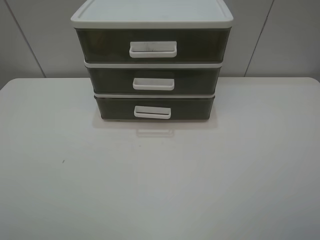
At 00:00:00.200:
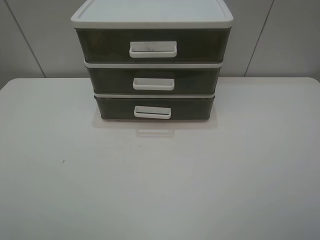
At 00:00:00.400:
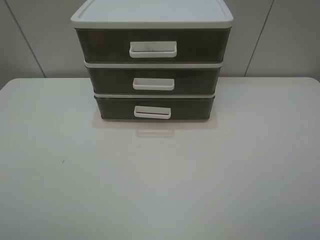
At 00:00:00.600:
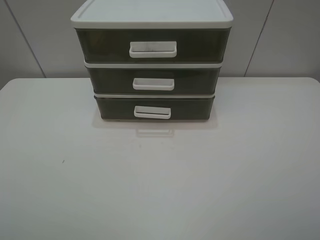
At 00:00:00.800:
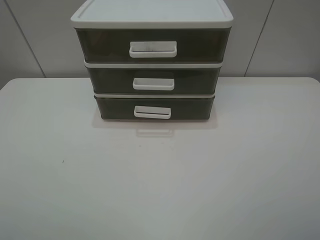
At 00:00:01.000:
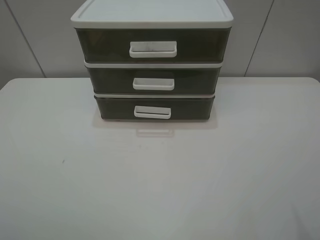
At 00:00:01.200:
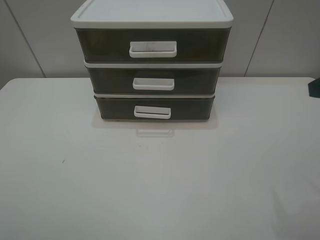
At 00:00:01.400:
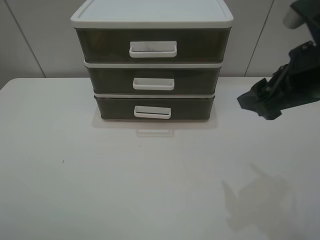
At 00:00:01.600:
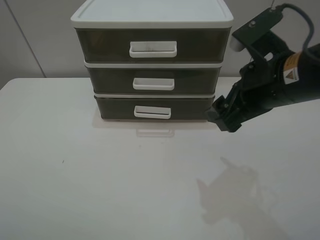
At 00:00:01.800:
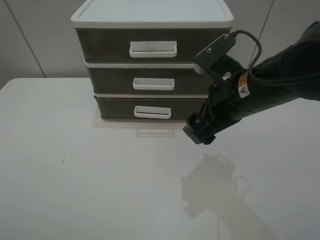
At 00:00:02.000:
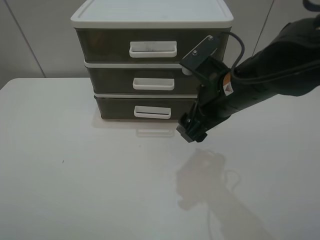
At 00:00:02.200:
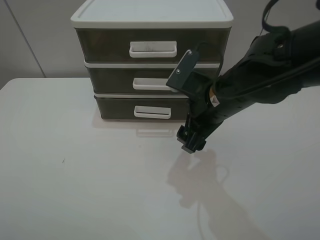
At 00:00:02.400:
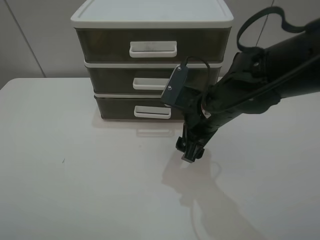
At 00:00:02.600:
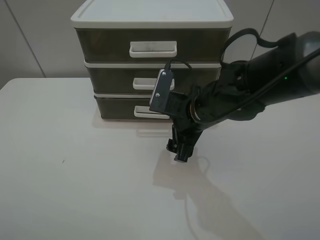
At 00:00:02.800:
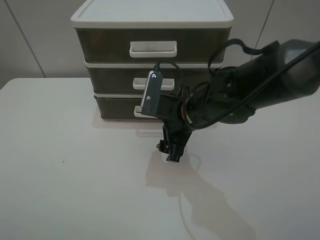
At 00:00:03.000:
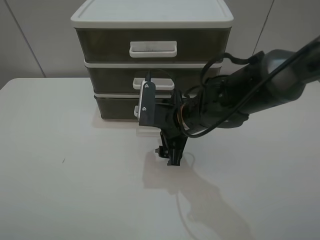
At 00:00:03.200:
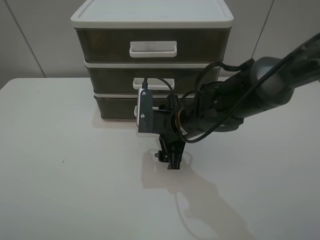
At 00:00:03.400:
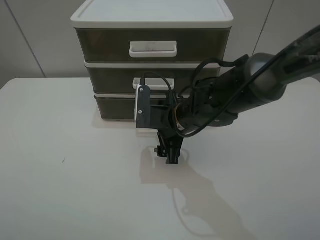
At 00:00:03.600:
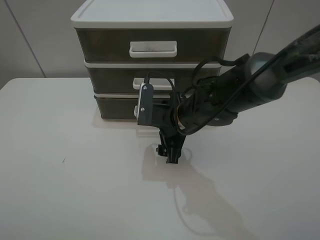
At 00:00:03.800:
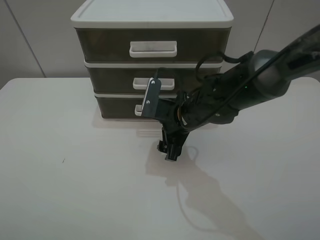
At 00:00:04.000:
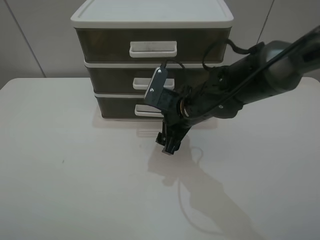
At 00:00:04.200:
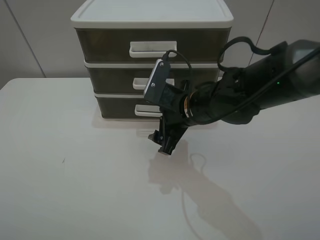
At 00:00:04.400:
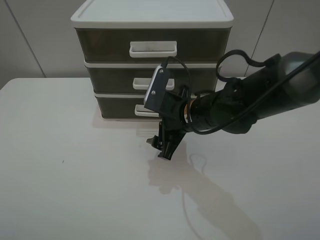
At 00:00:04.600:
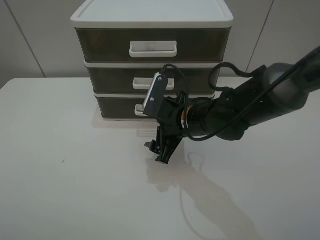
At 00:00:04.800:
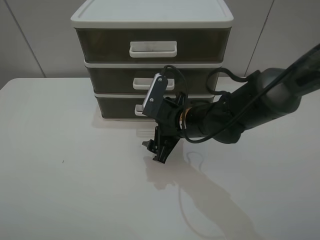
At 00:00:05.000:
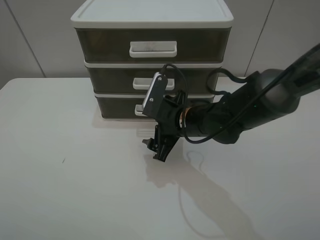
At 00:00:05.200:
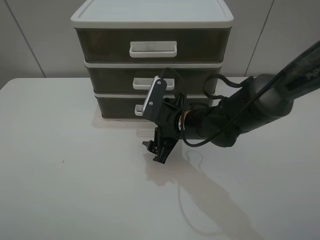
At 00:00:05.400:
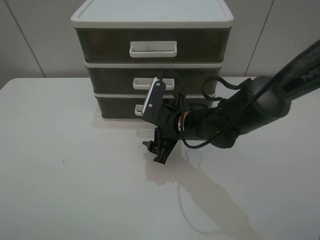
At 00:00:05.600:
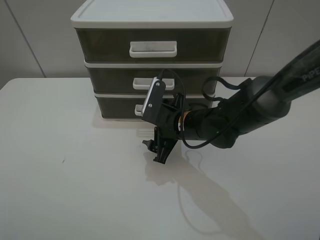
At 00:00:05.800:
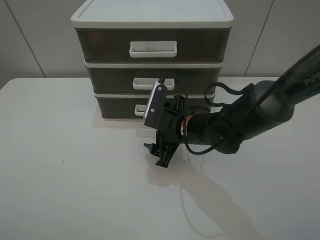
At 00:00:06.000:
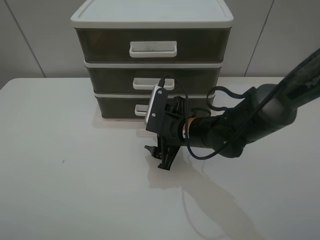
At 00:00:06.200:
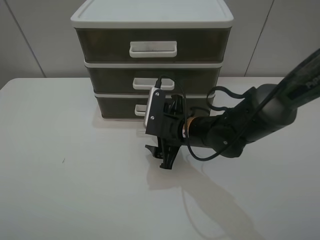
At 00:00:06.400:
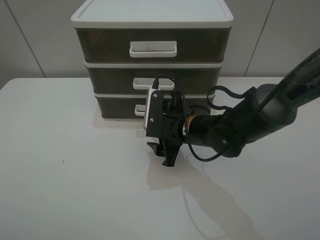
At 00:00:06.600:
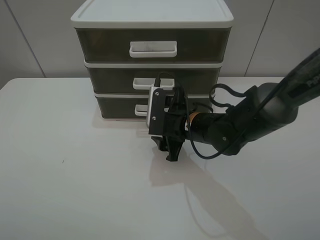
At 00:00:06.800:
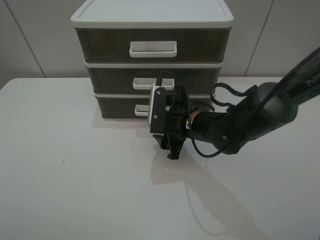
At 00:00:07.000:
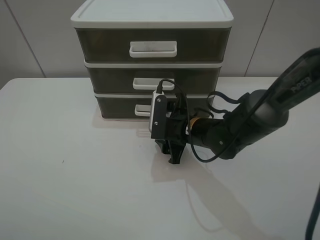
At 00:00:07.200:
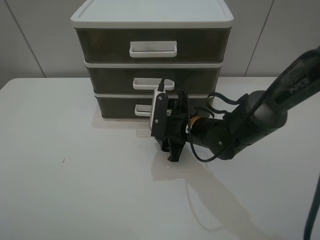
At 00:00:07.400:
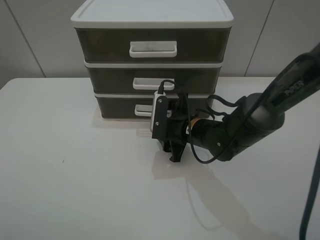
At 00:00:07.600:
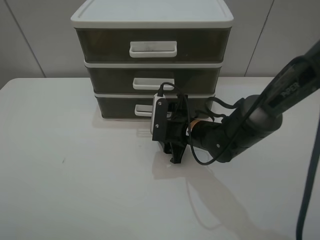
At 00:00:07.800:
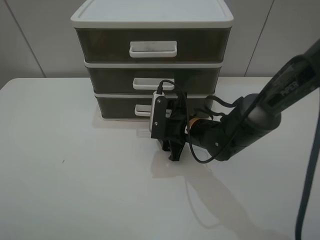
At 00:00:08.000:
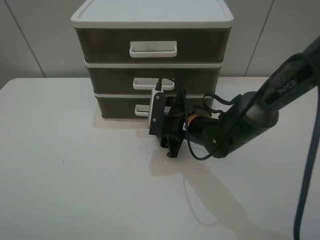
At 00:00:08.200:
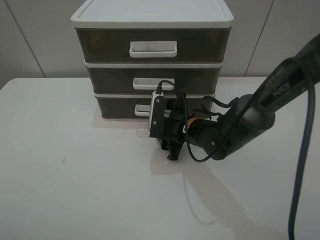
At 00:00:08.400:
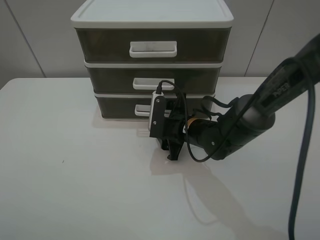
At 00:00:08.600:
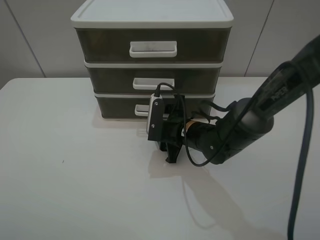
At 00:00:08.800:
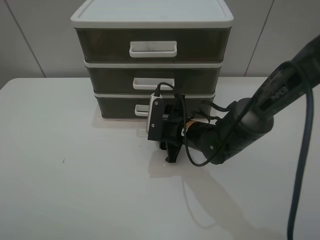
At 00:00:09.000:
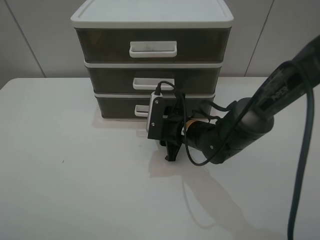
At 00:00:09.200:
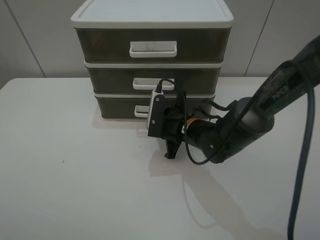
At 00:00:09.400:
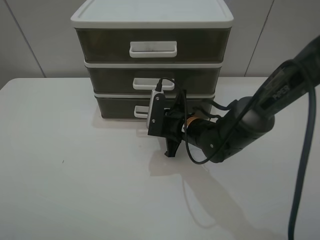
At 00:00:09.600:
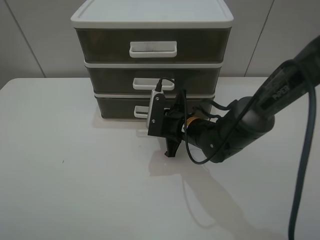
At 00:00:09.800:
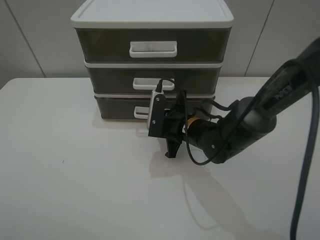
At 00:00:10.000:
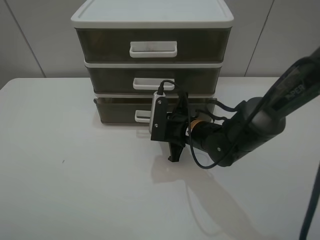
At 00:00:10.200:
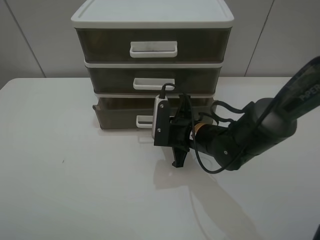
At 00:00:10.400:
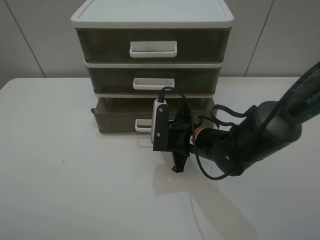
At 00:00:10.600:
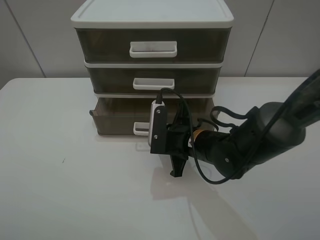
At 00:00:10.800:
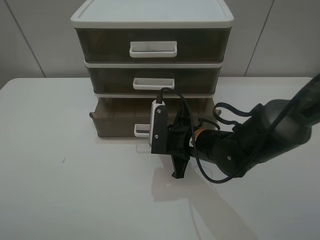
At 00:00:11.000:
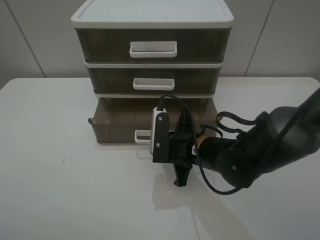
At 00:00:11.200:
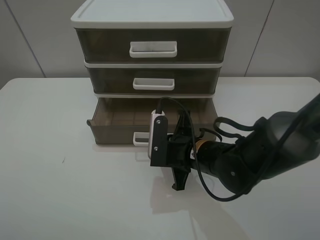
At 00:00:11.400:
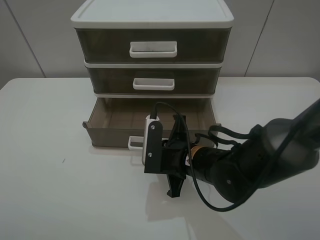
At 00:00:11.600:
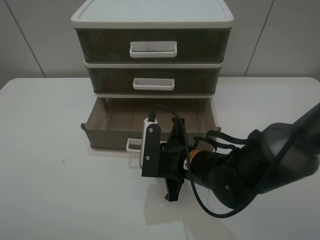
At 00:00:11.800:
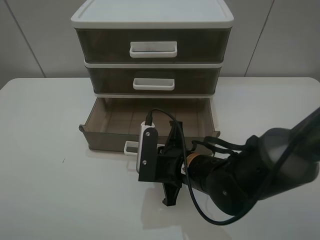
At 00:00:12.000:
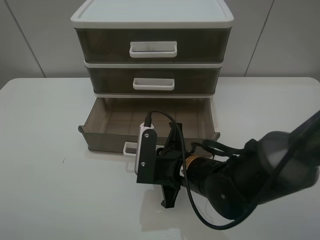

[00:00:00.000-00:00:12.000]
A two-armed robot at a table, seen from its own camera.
Task of the whole recording: open the bottom drawer.
Step, 00:00:00.000 to 00:00:09.600: Grab the bottom drawer with the right gripper.
00:00:00.000 to 00:00:01.600: The right gripper moves forward and to the left, some 25 cm.
00:00:01.600 to 00:00:03.000: The right gripper is displaced downward, to the left and forward by approximately 15 cm.
00:00:03.000 to 00:00:06.000: The grippers make only small movements.
00:00:06.000 to 00:00:07.600: The grippers stay close to where they were, moving slightly.
00:00:07.600 to 00:00:09.000: The right gripper closes its fingers.
00:00:09.000 to 00:00:10.400: The right gripper closes its fingers.
00:00:10.400 to 00:00:12.000: The right gripper shifts about 5 cm backward.

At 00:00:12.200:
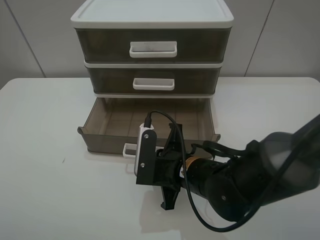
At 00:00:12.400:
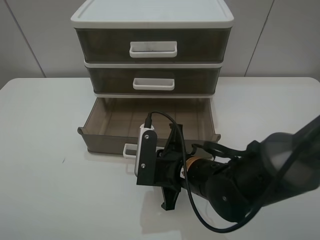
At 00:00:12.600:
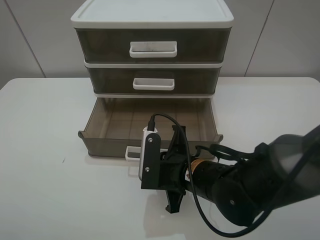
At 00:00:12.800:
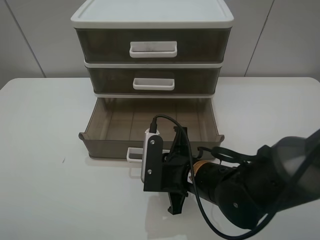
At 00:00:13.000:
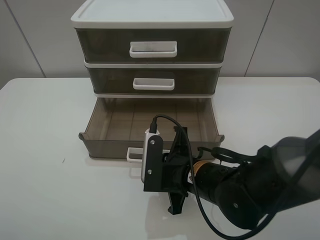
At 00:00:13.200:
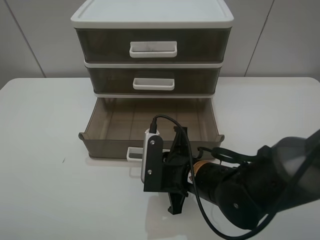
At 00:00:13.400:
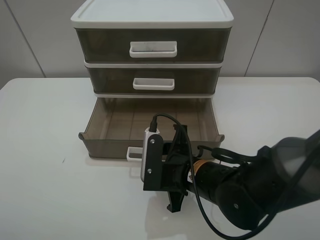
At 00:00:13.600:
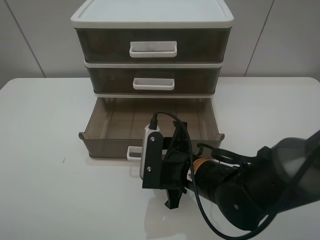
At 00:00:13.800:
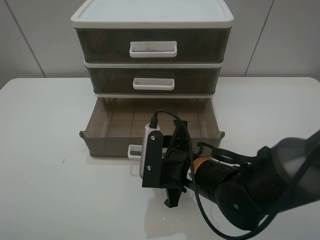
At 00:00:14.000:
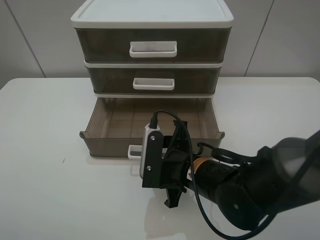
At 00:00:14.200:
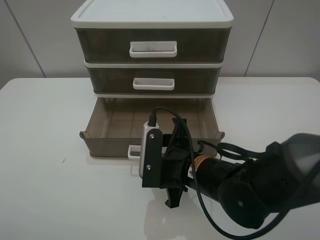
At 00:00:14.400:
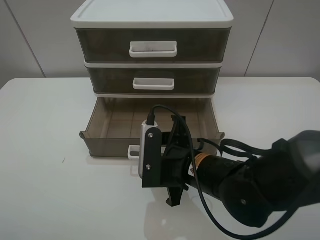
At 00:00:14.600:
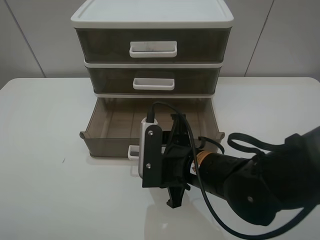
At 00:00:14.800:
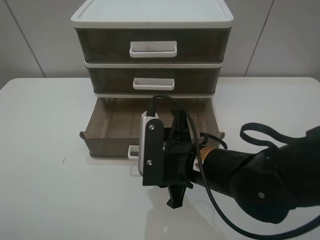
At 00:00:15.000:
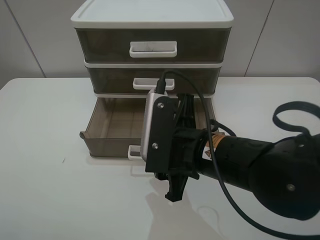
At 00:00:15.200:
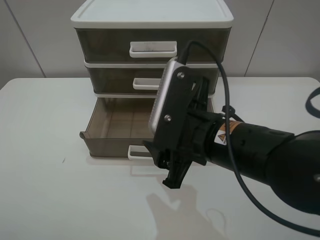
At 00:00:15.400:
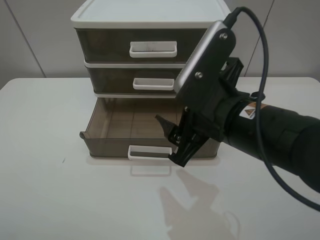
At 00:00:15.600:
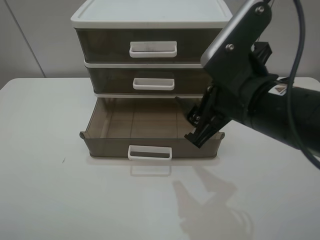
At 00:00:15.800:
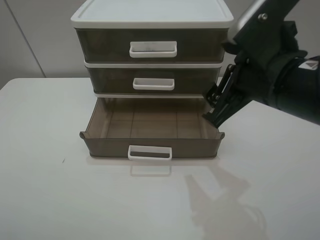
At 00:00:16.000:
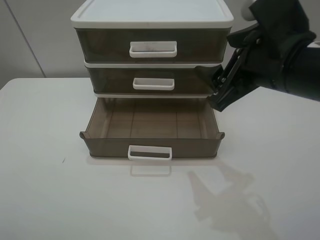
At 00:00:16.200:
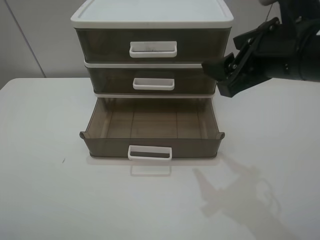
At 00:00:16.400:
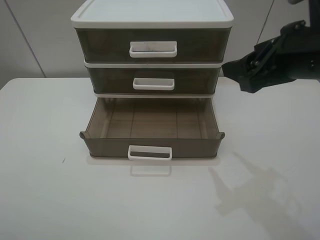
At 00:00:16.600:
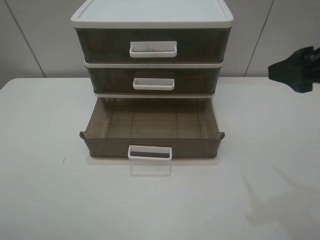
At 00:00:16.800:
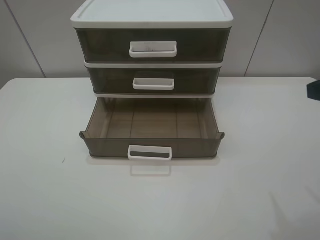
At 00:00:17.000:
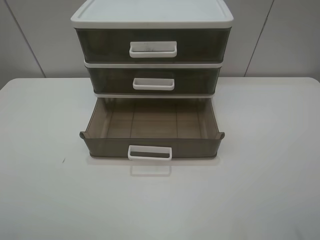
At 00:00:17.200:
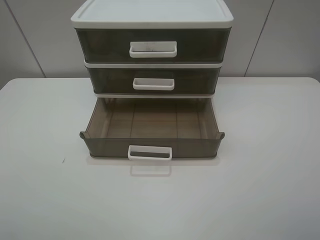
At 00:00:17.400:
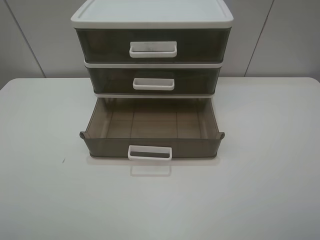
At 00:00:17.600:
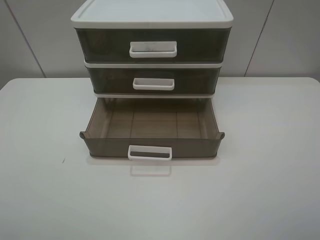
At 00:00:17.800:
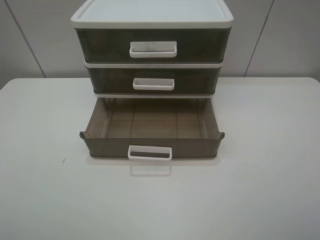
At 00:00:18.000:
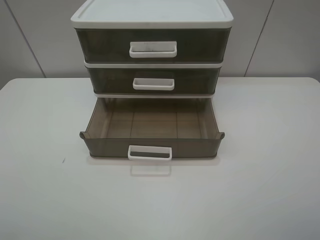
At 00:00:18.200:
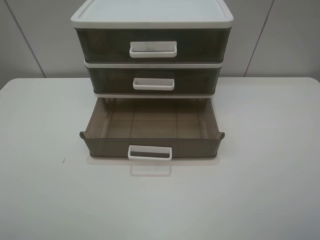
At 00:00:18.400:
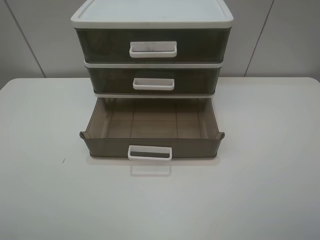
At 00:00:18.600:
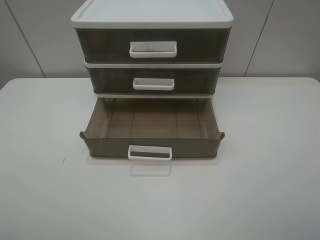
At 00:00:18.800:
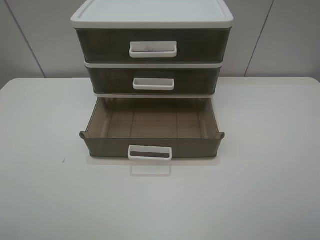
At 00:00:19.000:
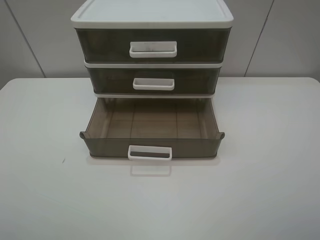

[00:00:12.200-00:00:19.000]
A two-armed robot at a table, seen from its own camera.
Task of the whole recording: open the bottom drawer.
Step, 00:00:12.200 to 00:00:14.600: Pull open the drawer with the right gripper.
00:00:12.200 to 00:00:13.600: The right gripper opens.
00:00:13.600 to 00:00:15.000: The right gripper heads upward, covering approximately 10 cm.
00:00:15.000 to 00:00:16.200: The right gripper moves to the right, upward and forward, some 15 cm.
00:00:16.200 to 00:00:17.600: The right gripper is displaced backward and to the right by about 25 cm.
